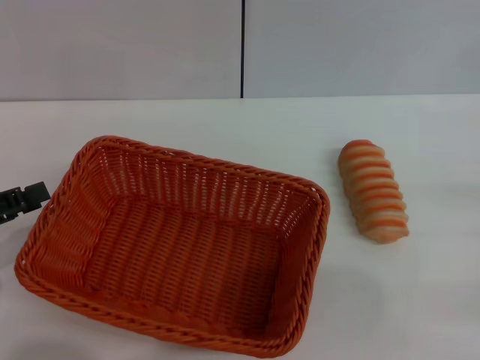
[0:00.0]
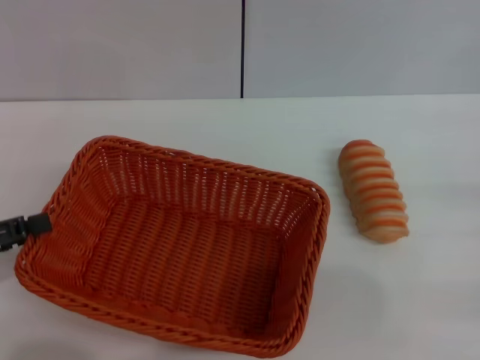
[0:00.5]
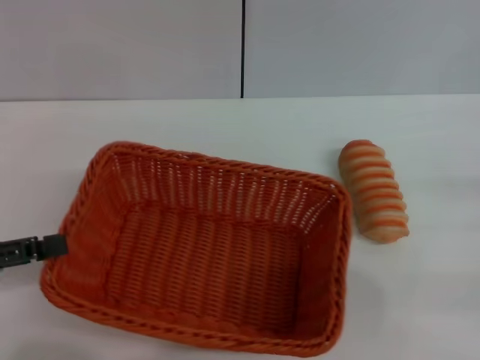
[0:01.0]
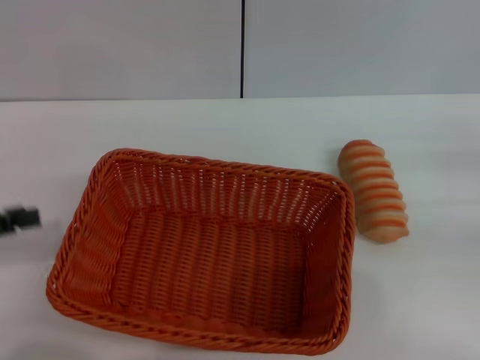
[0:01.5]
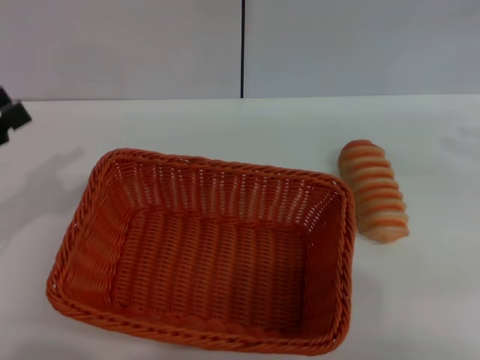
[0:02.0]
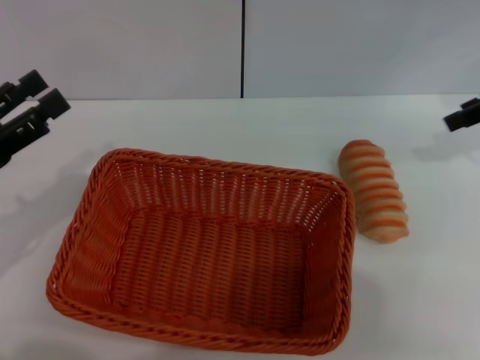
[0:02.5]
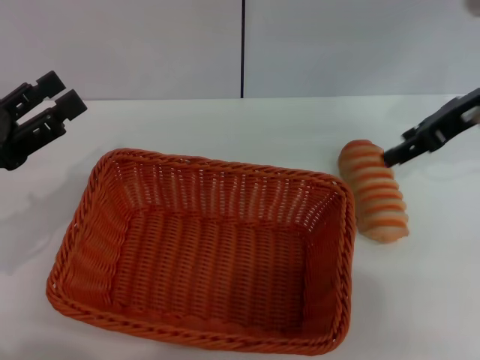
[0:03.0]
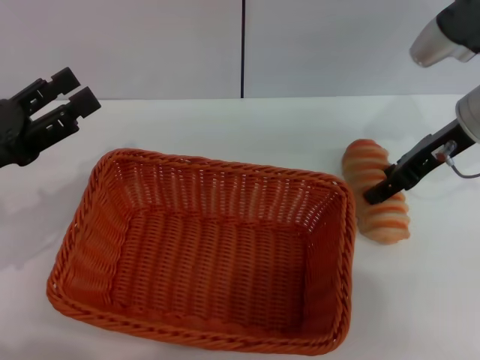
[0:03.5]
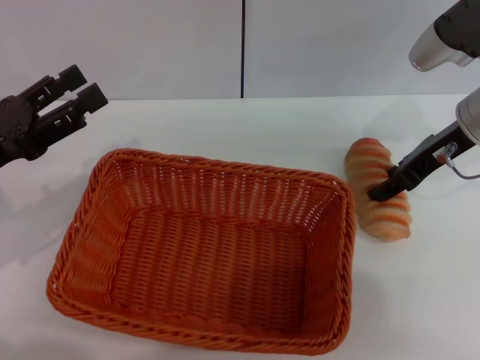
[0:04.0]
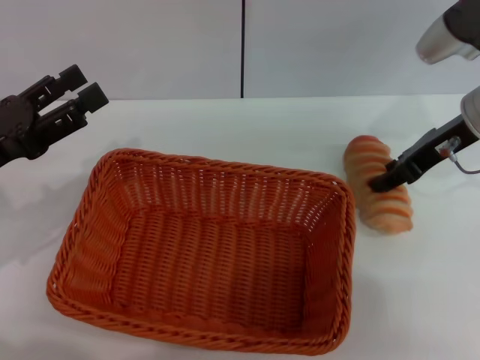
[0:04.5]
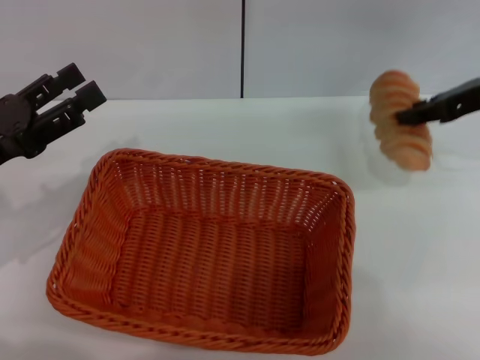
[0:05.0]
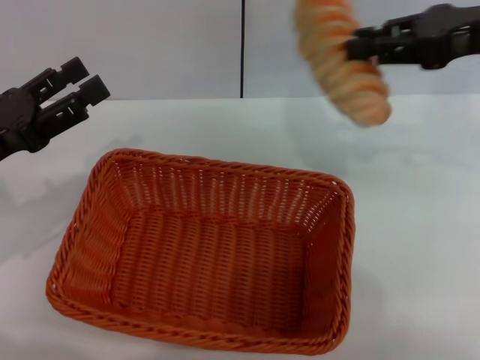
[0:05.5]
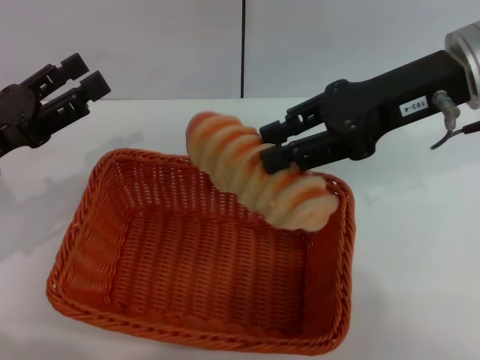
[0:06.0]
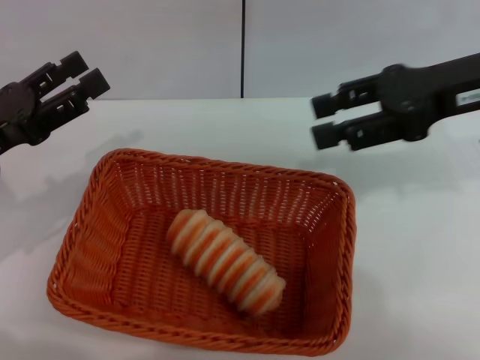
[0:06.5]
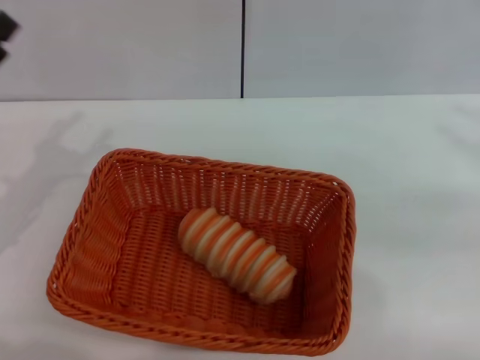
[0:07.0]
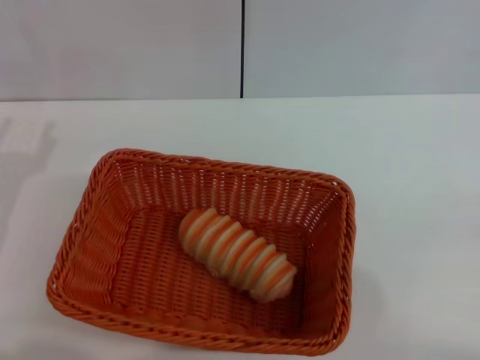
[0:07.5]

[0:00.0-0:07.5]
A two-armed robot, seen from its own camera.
Step, 0:02.0 to 0:04.5: Pick up the long bread with the right gripper.
Step, 0:05.0 to 0:06.0: Place the long bread into the light basket with the right gripper.
0:00.0 to 0:02.0: The left gripper opens up. The right gripper heads upward and forward, covering roughly 20 cm.
0:02.0 to 0:04.0: The left gripper moves to the right, some 5 cm. The right gripper heads to the left and downward, covering about 20 cm.
0:04.0 to 0:05.5: The right gripper heads upward, covering approximately 10 cm, and closes up.
0:05.5 to 0:07.5: The right gripper shifts approximately 30 cm backward, to the right and downward, and opens its fingers.

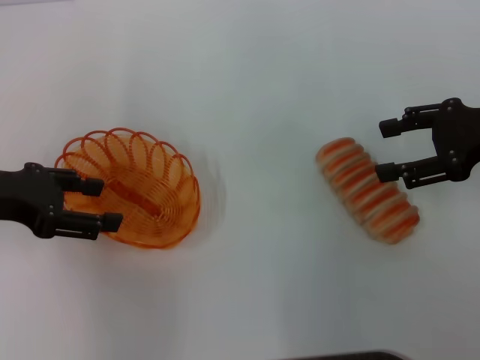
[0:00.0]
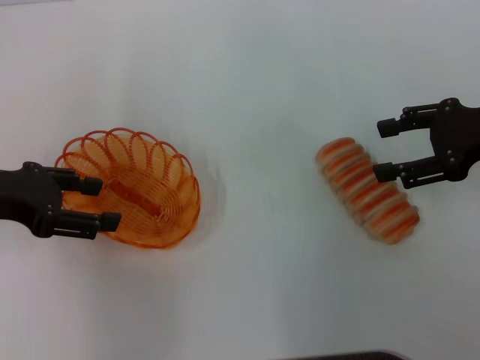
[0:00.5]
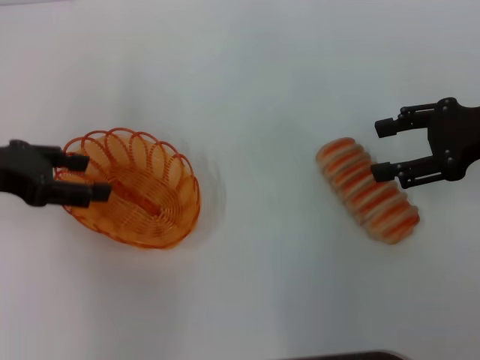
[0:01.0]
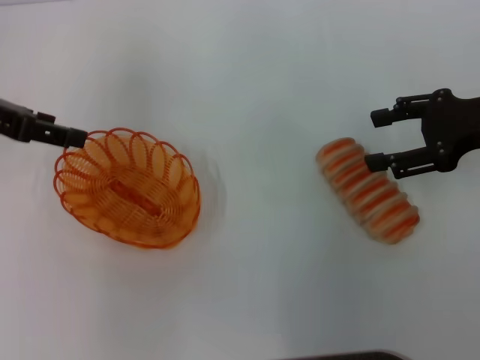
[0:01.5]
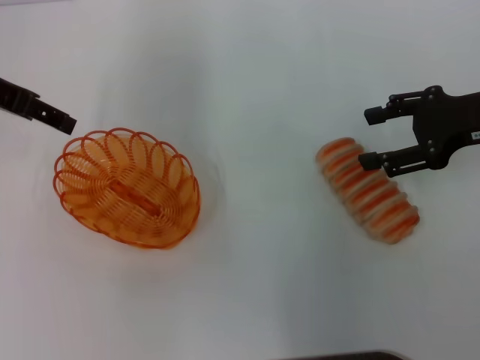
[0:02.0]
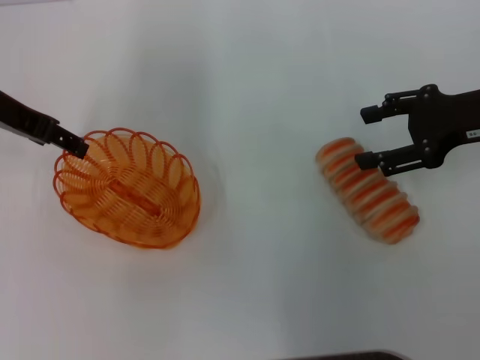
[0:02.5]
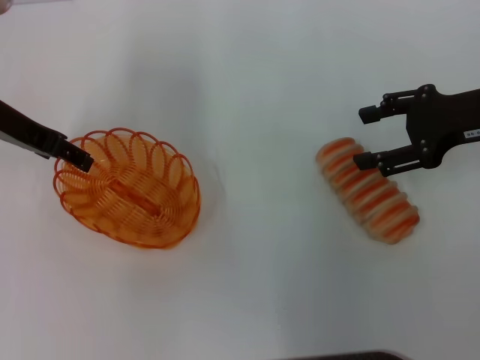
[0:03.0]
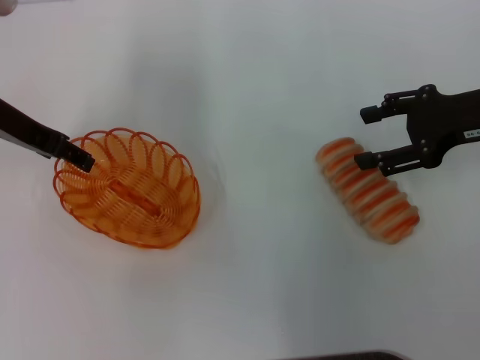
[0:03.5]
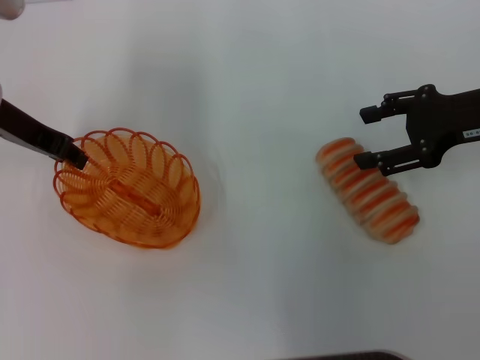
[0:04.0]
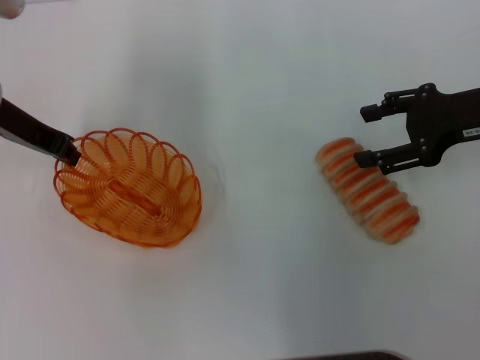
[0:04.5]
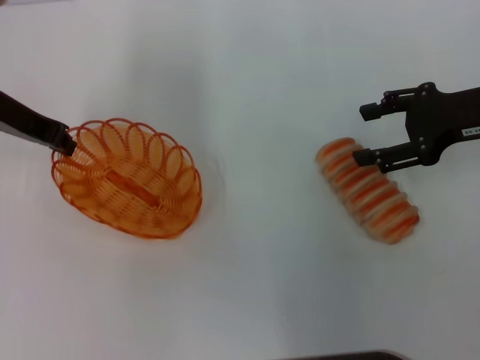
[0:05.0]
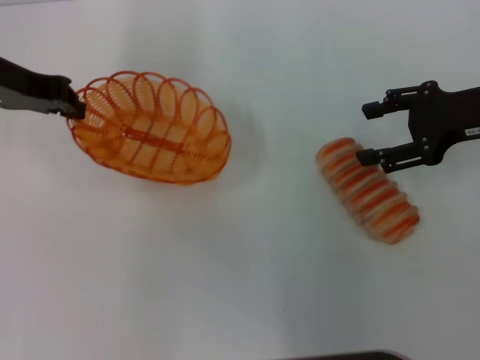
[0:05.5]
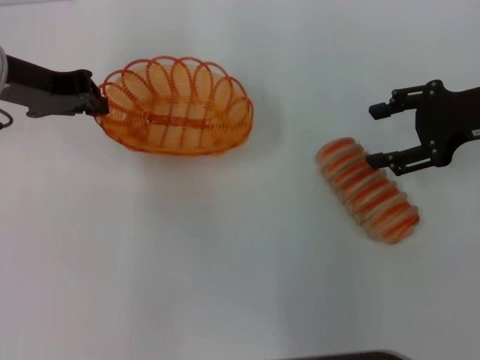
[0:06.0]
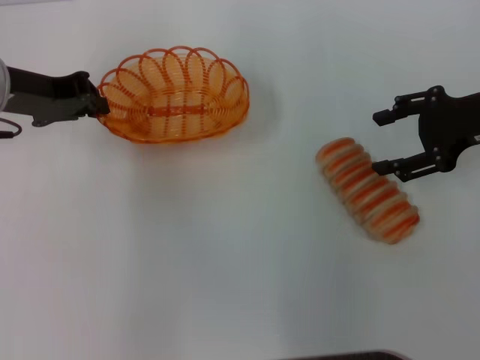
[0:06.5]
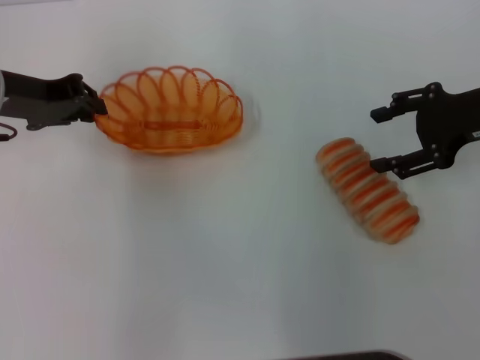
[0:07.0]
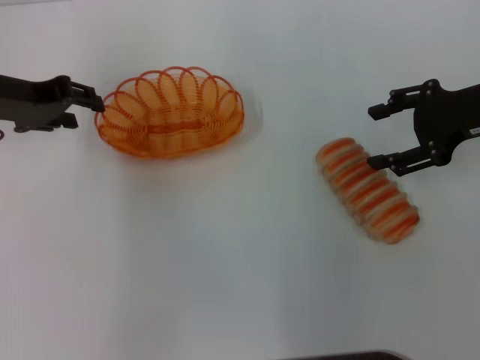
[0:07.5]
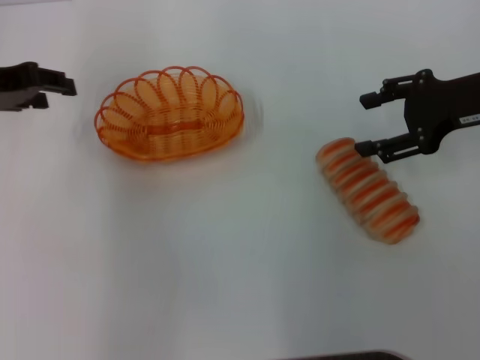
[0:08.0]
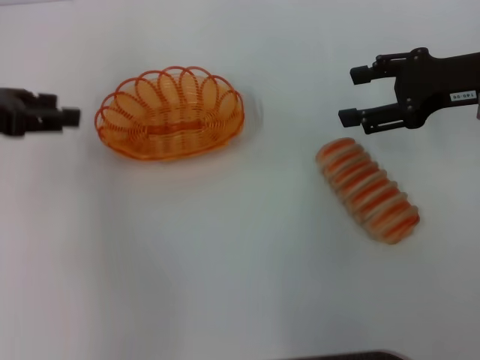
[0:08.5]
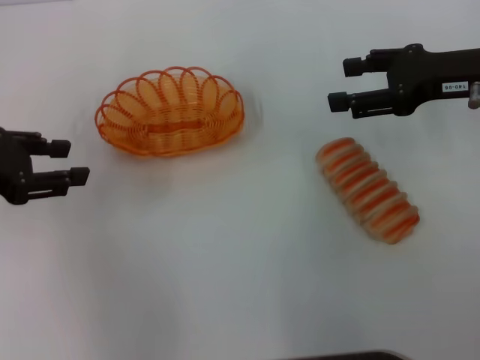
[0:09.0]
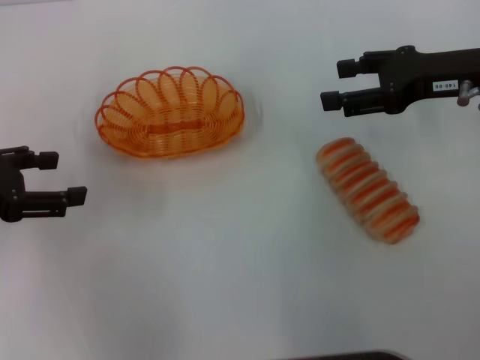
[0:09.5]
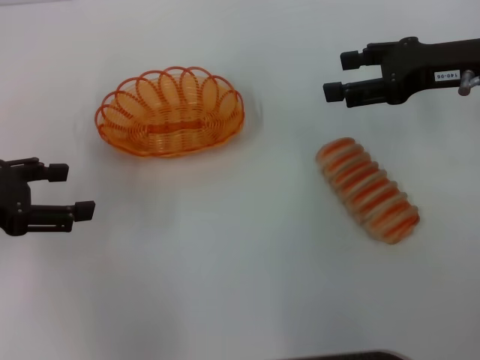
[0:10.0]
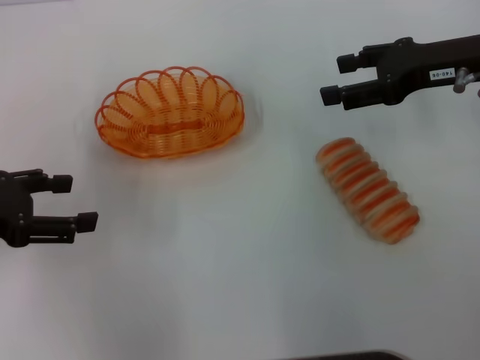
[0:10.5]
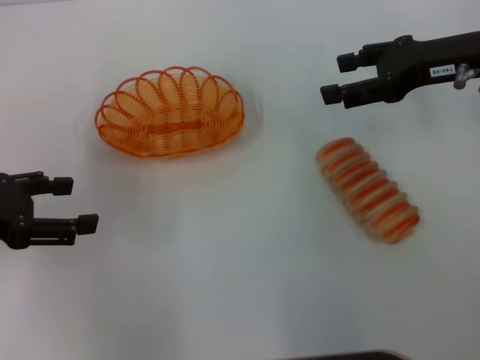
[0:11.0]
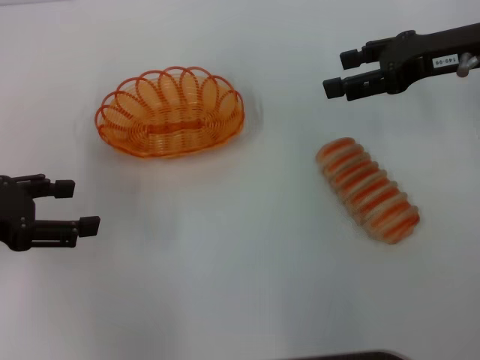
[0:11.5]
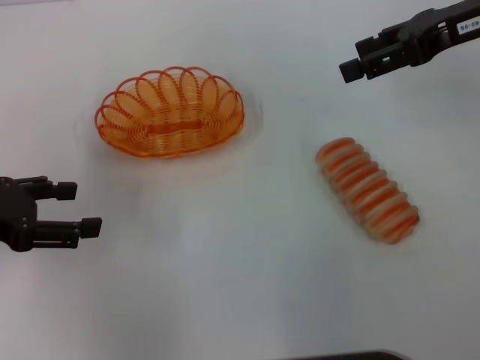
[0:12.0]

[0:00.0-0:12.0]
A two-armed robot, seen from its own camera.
Step, 0:00.0 to 0:05.0: Pick up the basket with the left gripper.
Step, 0:05.5 to 0:07.5: Place the basket in the center of view with the left gripper.
0:00.0 to 0:02.0: The left gripper shifts some 10 cm forward and upward.
0:02.0 to 0:04.0: The left gripper moves downward, some 5 cm.
0:04.0 to 0:06.0: The left gripper closes up.
0:06.0 to 0:08.0: The left gripper shifts by approximately 5 cm, and opens its fingers.
0:08.0 to 0:10.0: The left gripper moves backward, approximately 10 cm, and opens up.
0:10.0 to 0:12.0: The right gripper shifts approximately 5 cm upward.

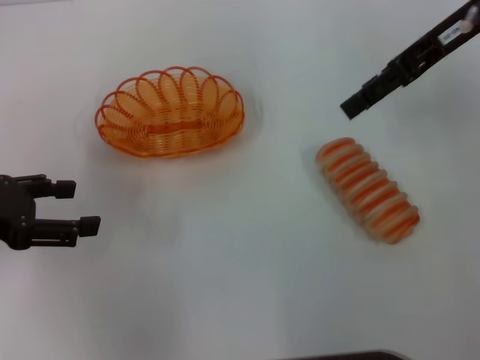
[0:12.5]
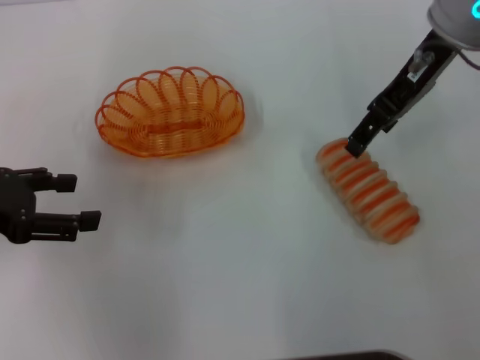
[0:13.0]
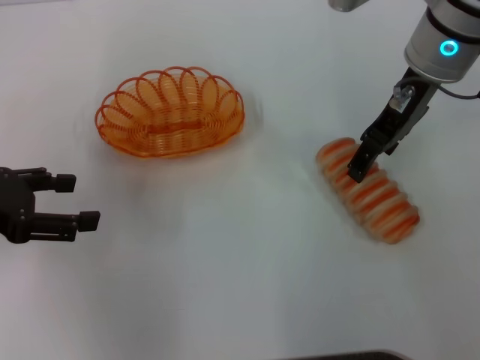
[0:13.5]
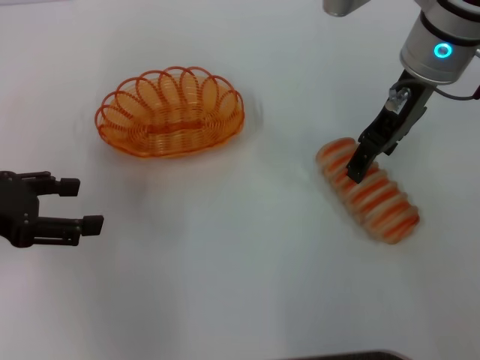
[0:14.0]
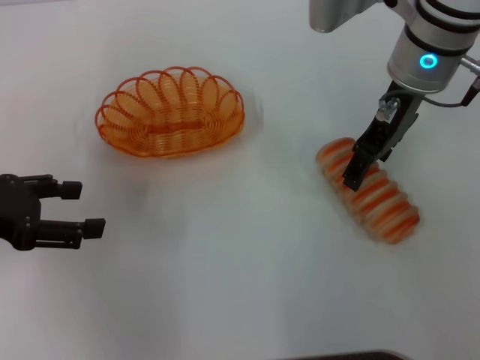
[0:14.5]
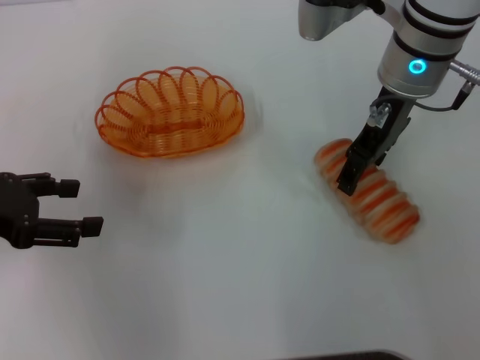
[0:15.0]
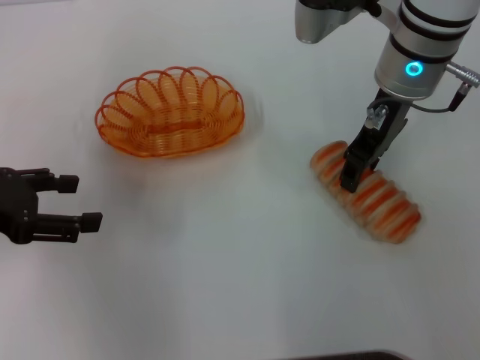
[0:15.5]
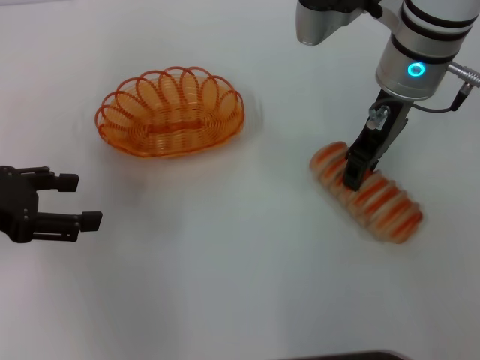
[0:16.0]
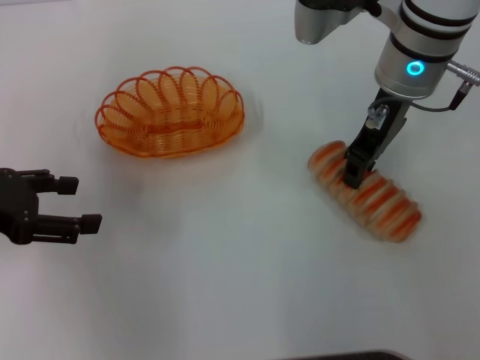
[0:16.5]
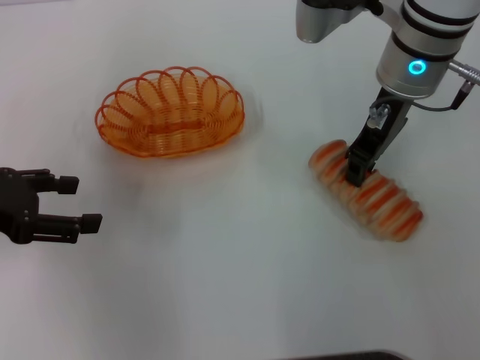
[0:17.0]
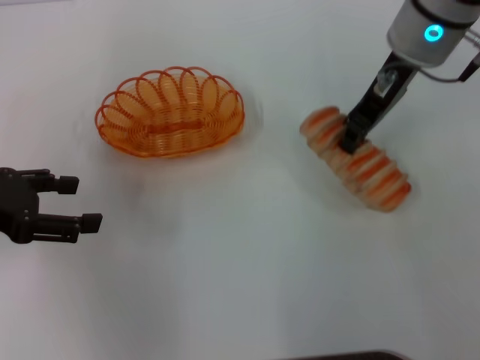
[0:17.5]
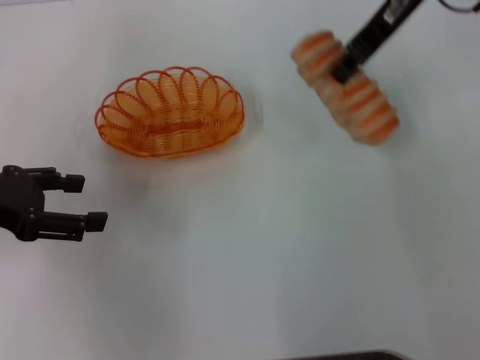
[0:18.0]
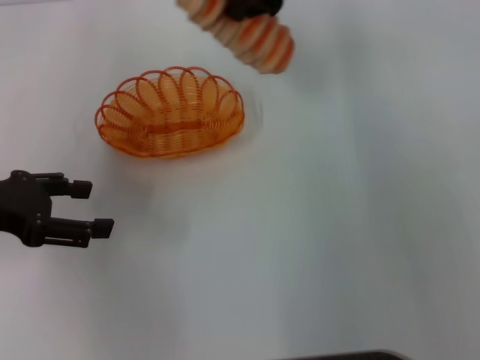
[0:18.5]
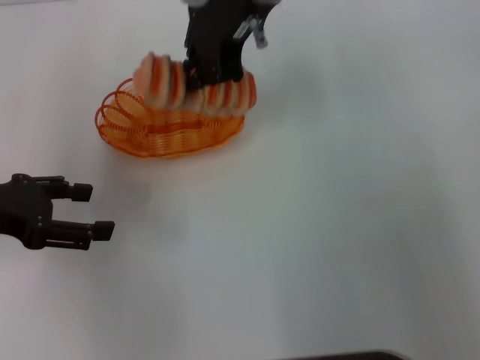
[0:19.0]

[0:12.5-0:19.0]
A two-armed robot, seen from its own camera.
Step, 0:12.5 to 0:17.5: Pick up the long bread with the right gripper.
0:12.5 to 0:14.5: The right gripper is displaced to the left and downward by about 10 cm.
0:14.5 to 0:17.0: The right gripper closes.
0:17.0 to 0:19.0: The right gripper goes some 15 cm to the left and upward.
